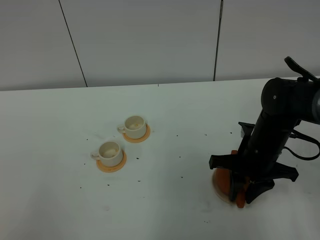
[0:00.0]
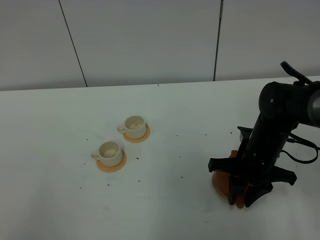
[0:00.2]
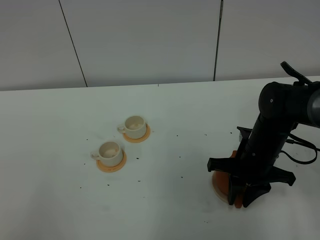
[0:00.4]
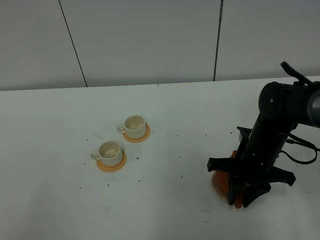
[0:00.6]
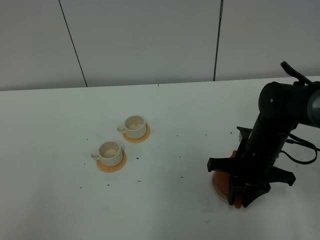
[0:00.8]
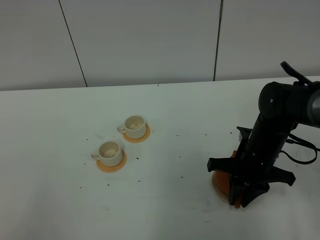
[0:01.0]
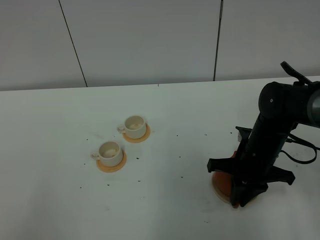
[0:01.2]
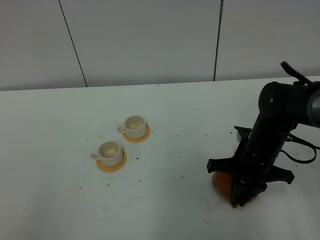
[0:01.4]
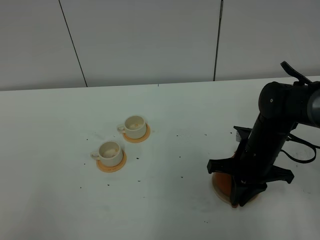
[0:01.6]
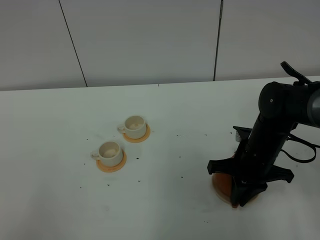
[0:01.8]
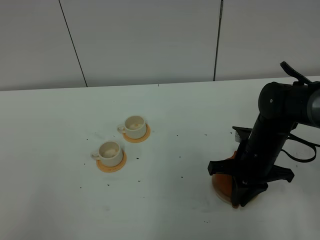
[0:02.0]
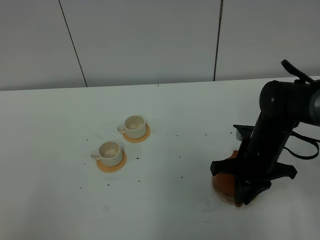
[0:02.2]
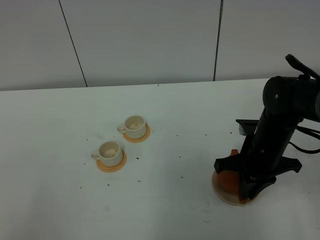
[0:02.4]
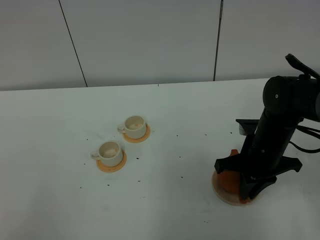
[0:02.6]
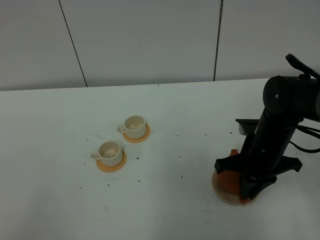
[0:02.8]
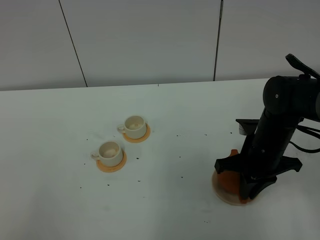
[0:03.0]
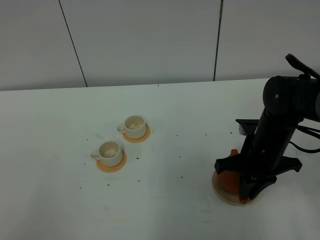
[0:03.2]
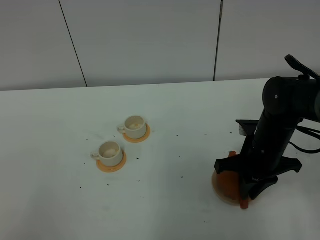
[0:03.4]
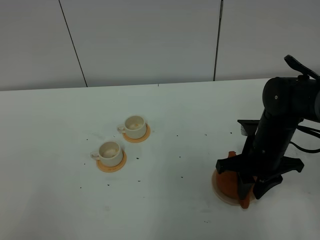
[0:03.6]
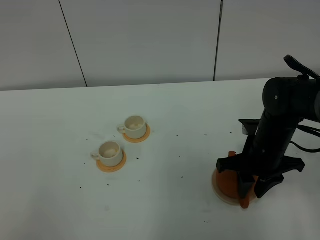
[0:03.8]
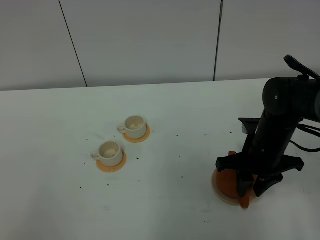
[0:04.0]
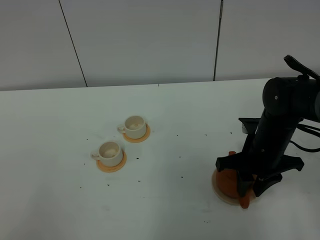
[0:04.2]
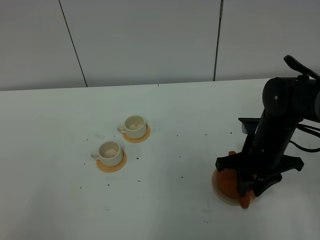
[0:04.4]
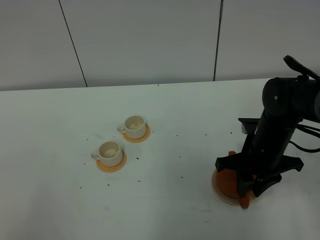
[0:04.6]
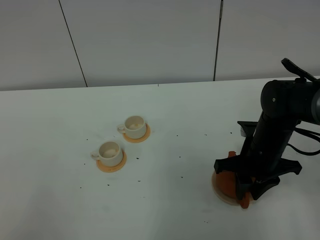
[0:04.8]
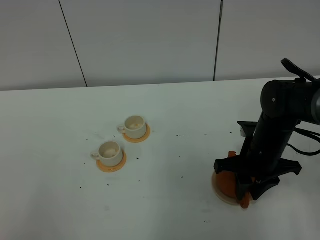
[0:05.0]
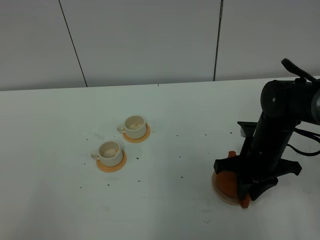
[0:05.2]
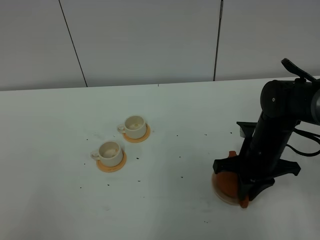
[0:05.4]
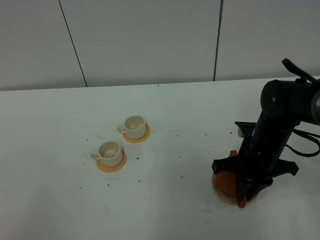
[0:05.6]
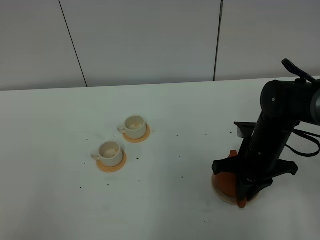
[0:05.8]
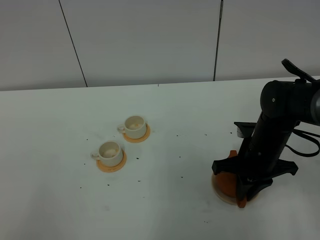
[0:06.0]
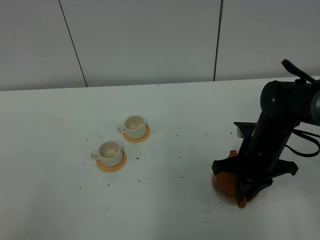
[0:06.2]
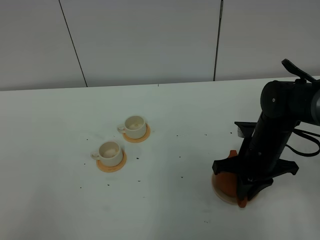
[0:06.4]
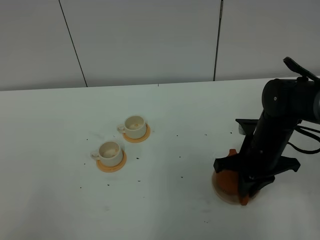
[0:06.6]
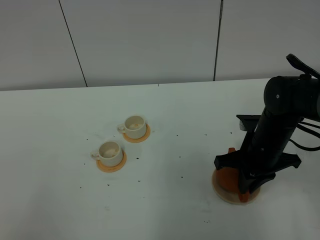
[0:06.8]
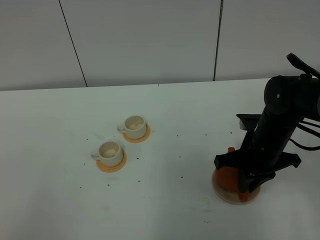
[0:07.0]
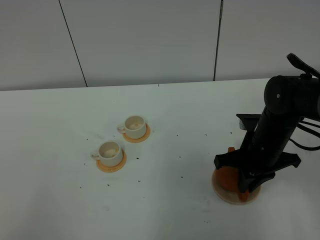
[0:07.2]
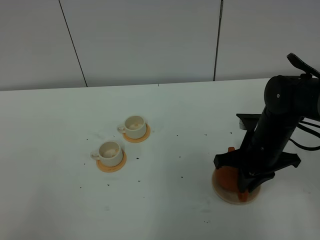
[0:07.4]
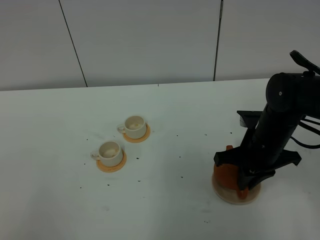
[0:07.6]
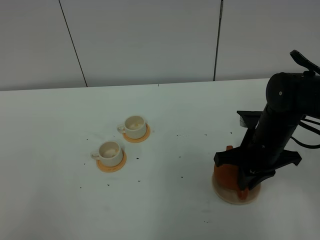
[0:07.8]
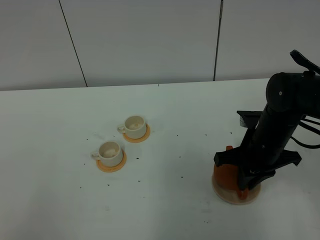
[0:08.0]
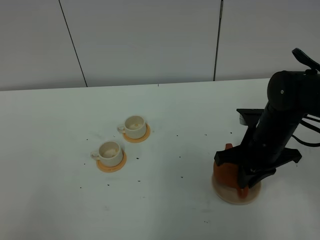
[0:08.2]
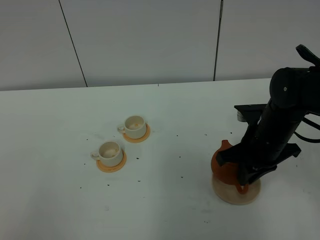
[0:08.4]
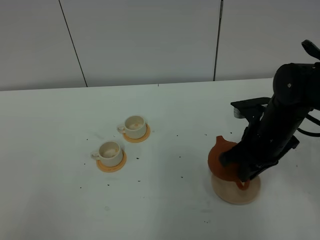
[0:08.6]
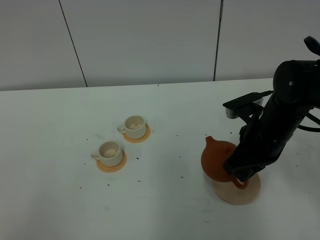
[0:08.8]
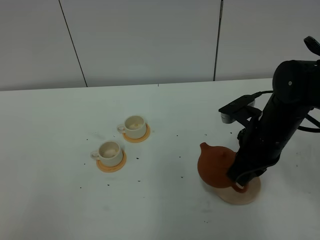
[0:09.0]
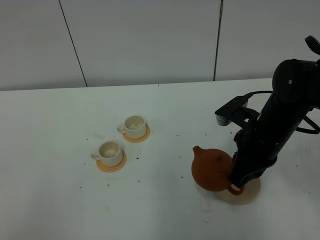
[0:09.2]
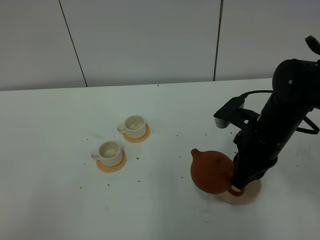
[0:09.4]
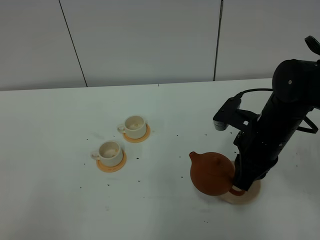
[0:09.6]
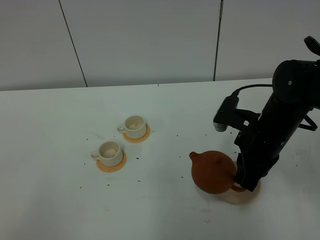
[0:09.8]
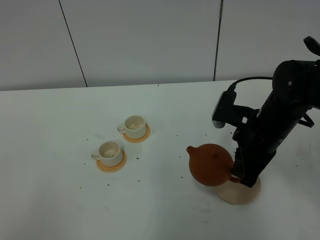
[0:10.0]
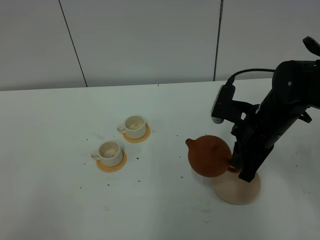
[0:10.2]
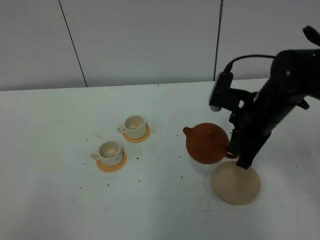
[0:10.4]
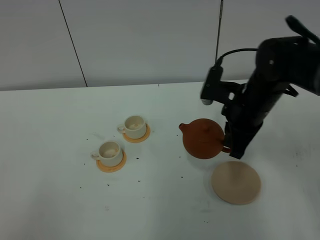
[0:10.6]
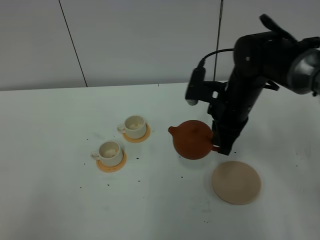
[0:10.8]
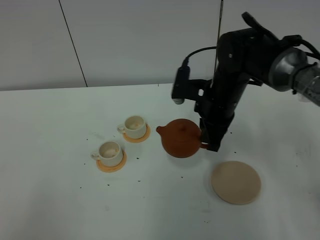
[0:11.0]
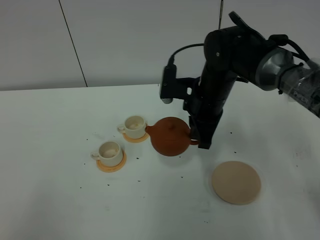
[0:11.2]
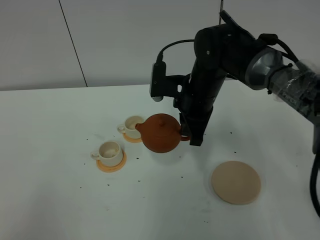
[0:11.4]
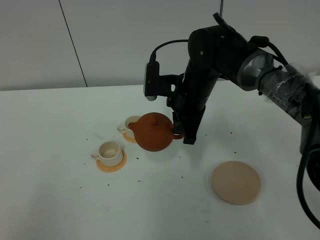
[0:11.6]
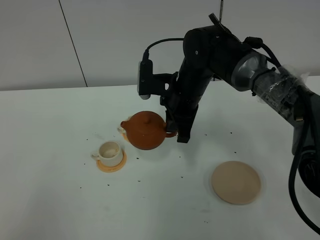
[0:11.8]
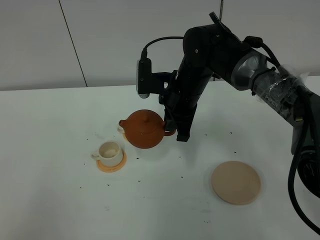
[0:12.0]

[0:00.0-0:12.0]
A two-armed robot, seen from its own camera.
Task of the whole recording: grasp the brown teapot and pour the tea into the two white teacups one by one, put the brown teapot back in its original place.
Step, 0:00.0 to 0:09.4: Pick up the teapot with the right gripper.
0:00.0 to 0:01.6: The right gripper closes up.
0:01.6 to 0:03.0: There are only small adjustments of the grippers.
0:03.0 to 0:04.4: The right gripper opens.
0:04.4 to 0:06.0: The right gripper closes its fingers.
0:06.0 to 0:07.6: The grippers stay close to where they were, moving slightly.
0:10.4 to 0:12.0: The right gripper shifts roughly 15 cm to the left and forward.

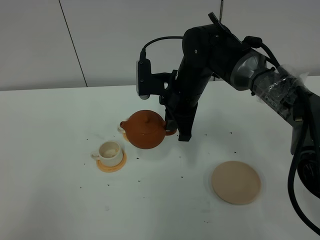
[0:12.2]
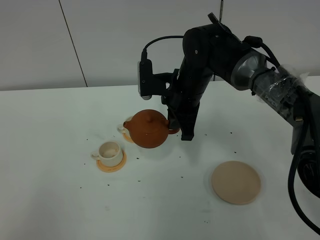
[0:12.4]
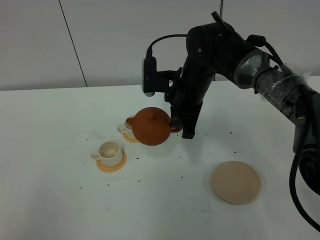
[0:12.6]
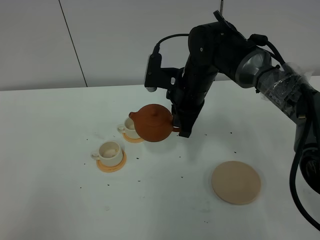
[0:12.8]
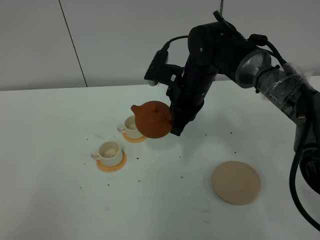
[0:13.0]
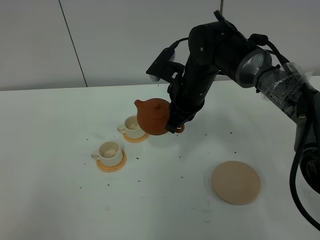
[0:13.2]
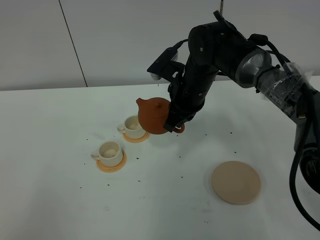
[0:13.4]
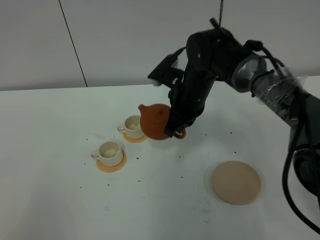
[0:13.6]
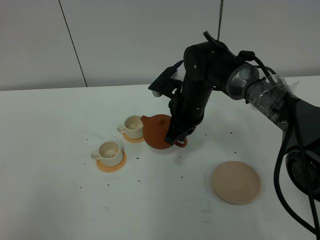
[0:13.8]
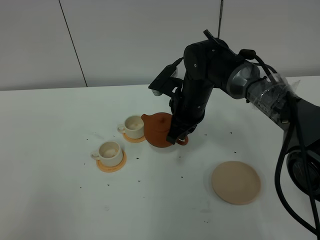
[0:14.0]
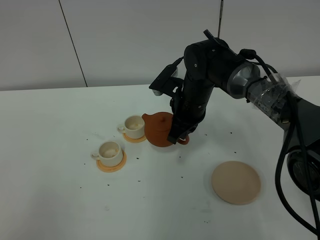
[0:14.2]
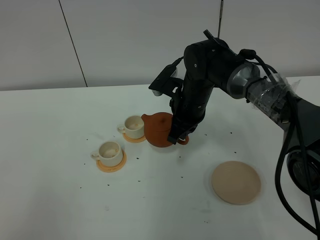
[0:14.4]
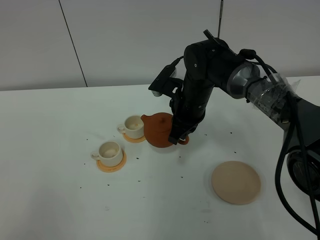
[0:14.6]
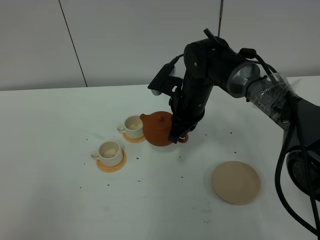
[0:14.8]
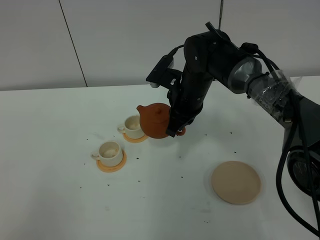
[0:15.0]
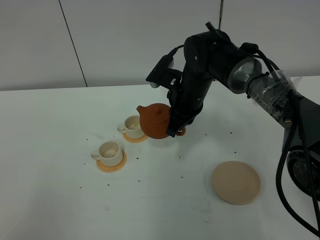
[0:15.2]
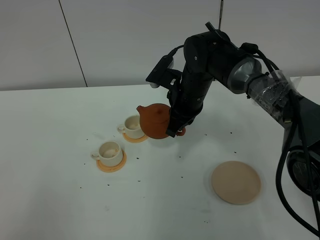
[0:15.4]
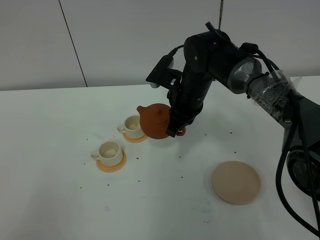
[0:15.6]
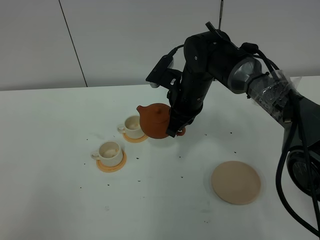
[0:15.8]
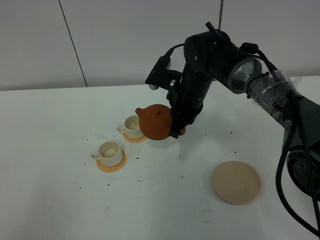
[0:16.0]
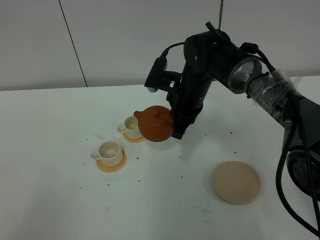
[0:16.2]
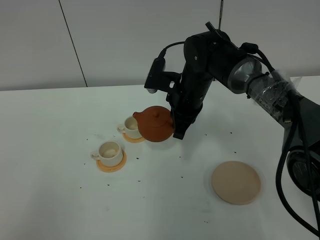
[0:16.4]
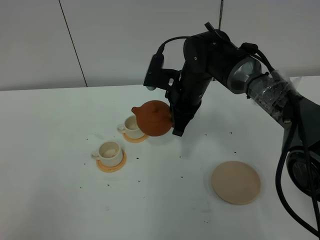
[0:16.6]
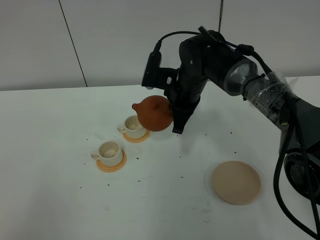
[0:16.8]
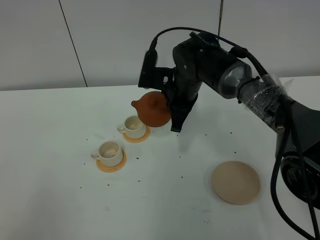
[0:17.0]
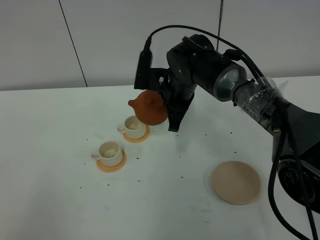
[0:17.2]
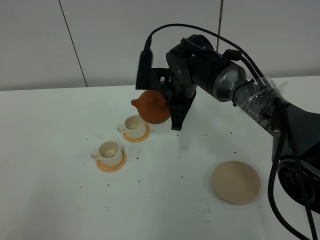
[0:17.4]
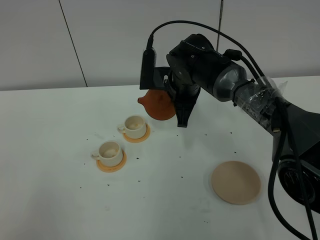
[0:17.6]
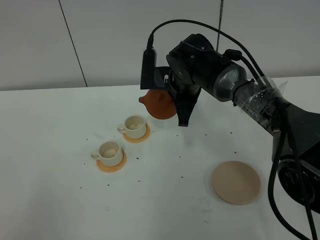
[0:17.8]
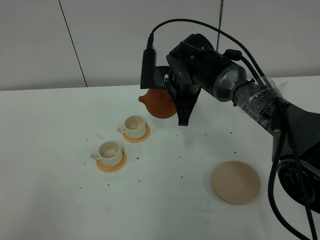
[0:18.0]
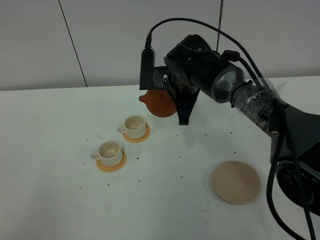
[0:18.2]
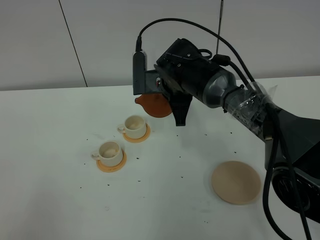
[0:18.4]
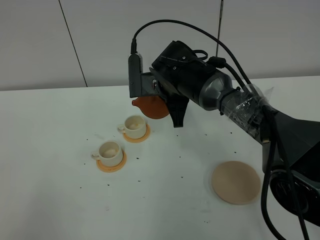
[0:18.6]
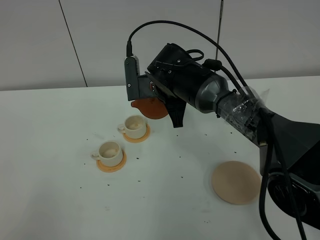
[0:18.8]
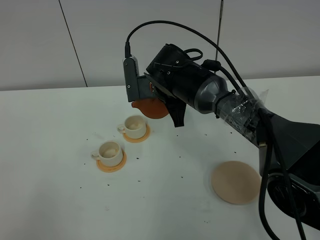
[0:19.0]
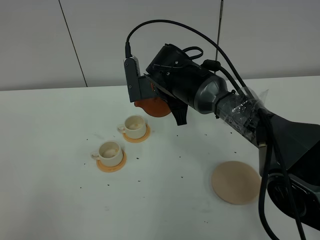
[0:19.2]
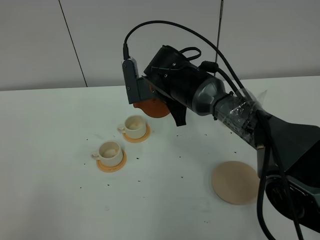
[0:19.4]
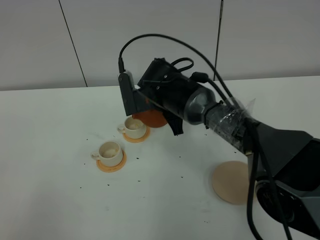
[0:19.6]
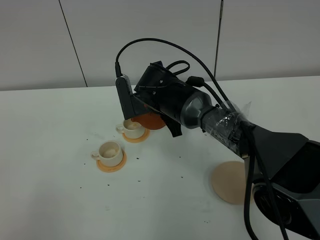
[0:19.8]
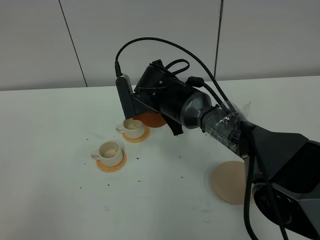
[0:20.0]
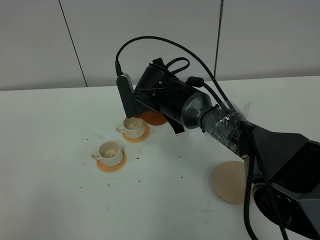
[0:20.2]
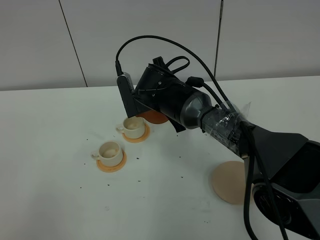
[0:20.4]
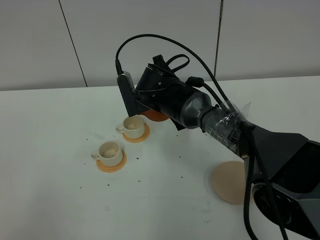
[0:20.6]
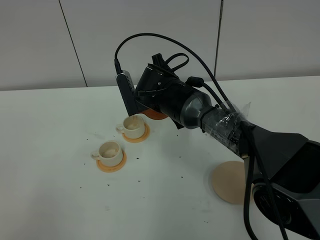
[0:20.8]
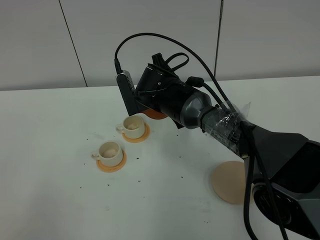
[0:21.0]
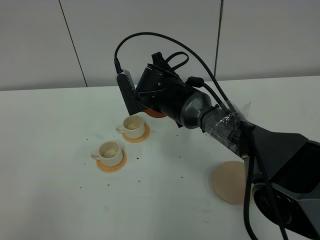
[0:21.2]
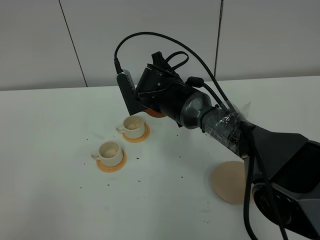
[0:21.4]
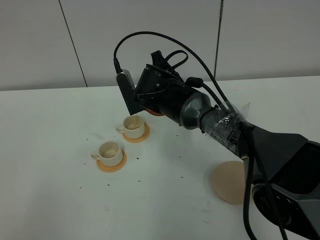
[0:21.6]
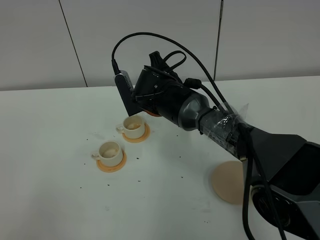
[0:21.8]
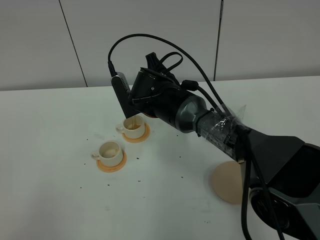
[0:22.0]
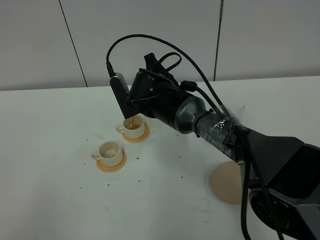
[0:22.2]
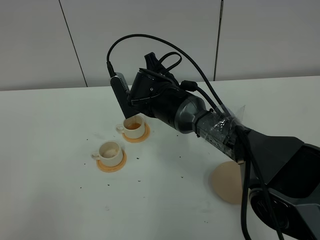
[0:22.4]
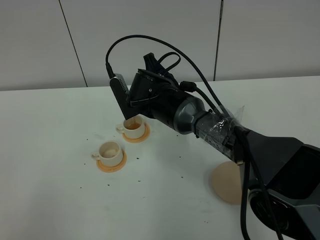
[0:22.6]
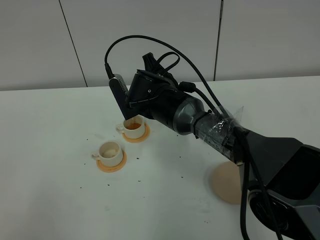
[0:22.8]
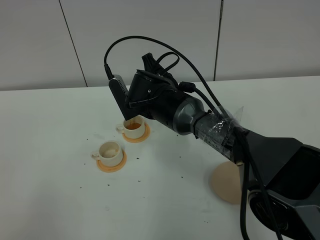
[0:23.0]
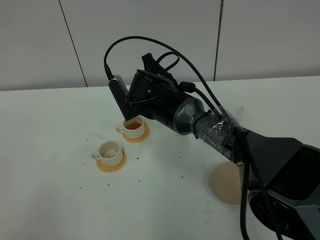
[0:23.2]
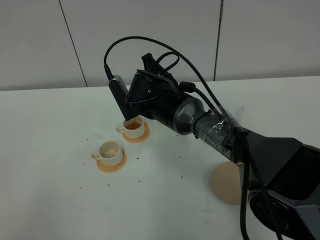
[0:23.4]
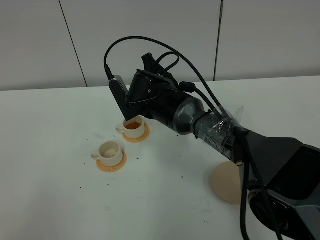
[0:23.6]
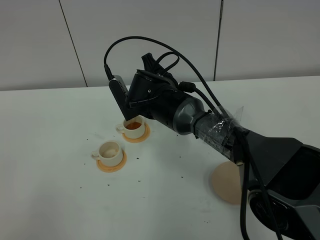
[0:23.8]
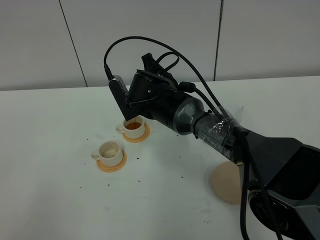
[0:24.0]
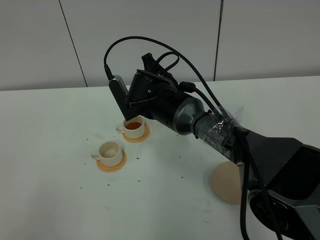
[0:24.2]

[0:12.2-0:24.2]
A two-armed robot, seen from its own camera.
Task of the whole recording: grasp the brown teapot and pour the tea into the two white teacups one by one, put the brown teapot back in its original place.
0:13.8 to 0:15.2: The grippers make only small movements.
0:15.2 to 0:16.6: The grippers make only small movements.
0:18.2 to 0:19.8: The right gripper ends up some 5 cm from where it was.
0:19.8 to 0:22.6: The grippers move only a little.
0:22.6 to 0:24.2: Neither gripper changes place.
